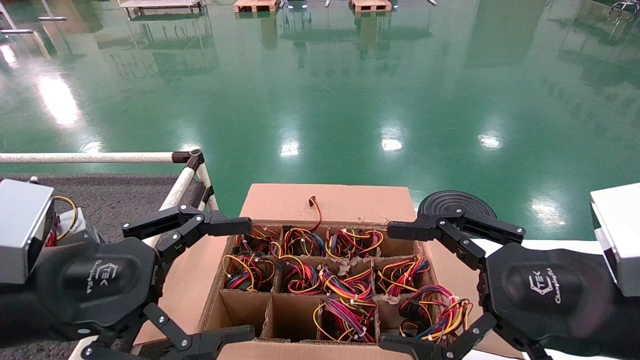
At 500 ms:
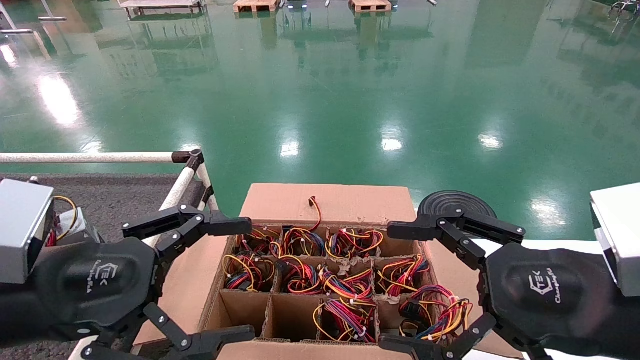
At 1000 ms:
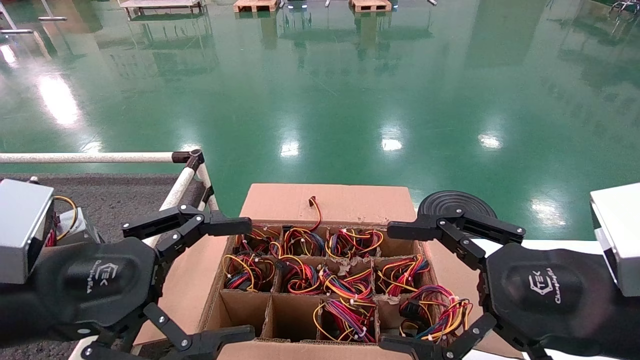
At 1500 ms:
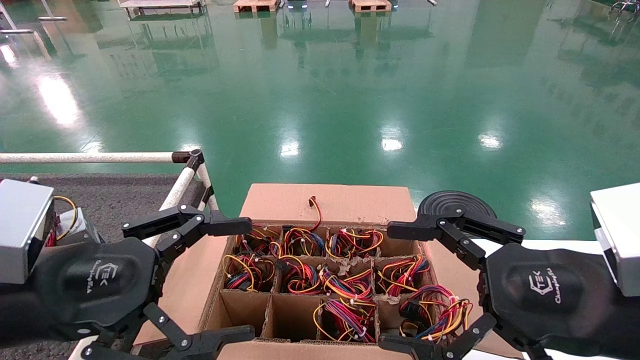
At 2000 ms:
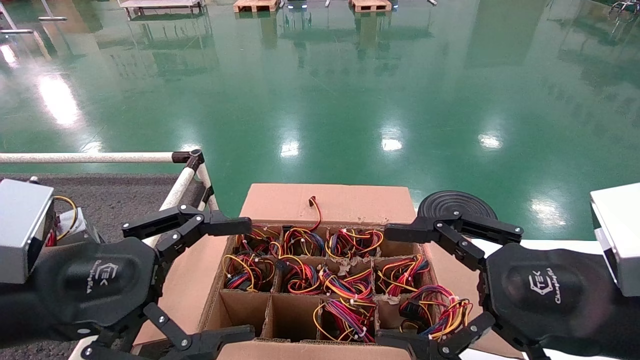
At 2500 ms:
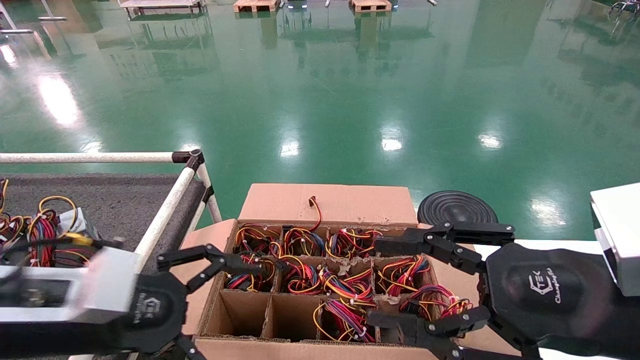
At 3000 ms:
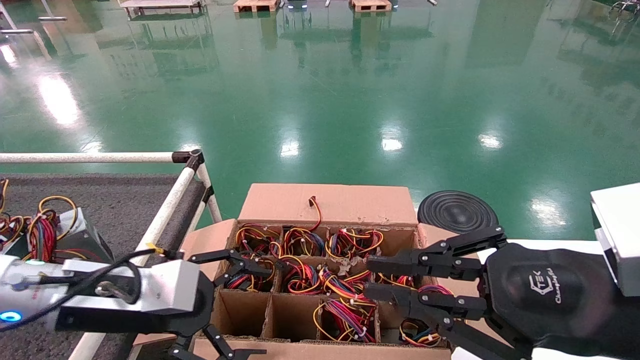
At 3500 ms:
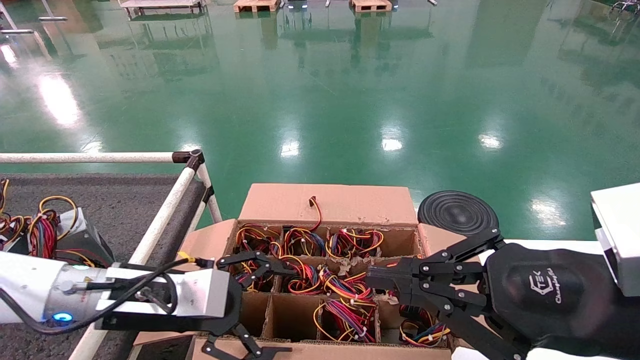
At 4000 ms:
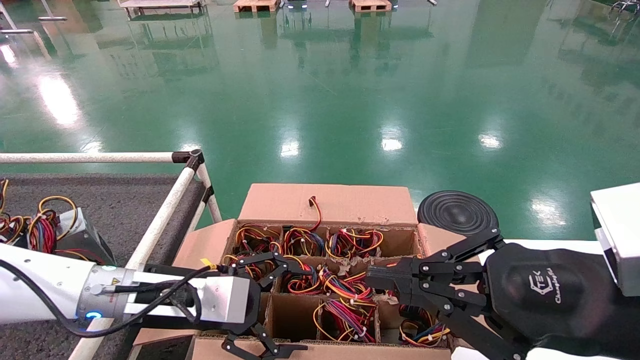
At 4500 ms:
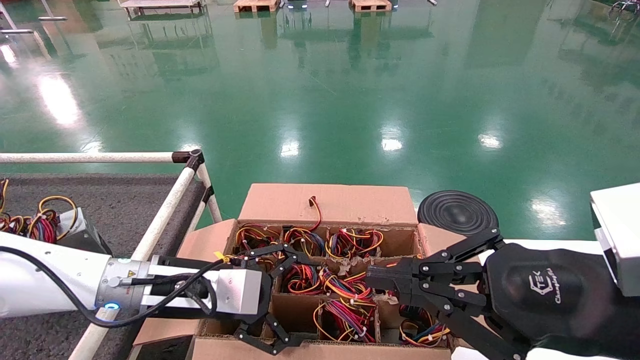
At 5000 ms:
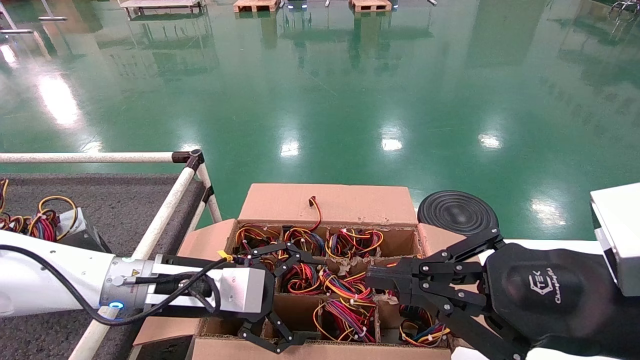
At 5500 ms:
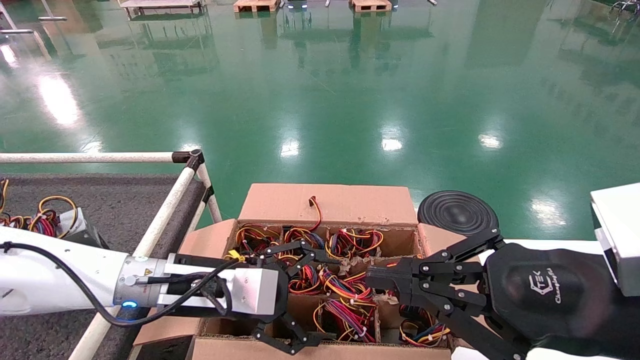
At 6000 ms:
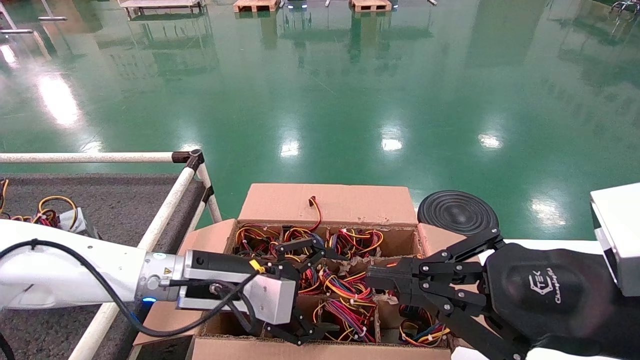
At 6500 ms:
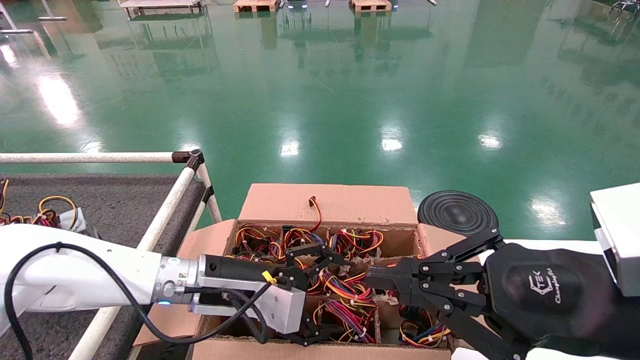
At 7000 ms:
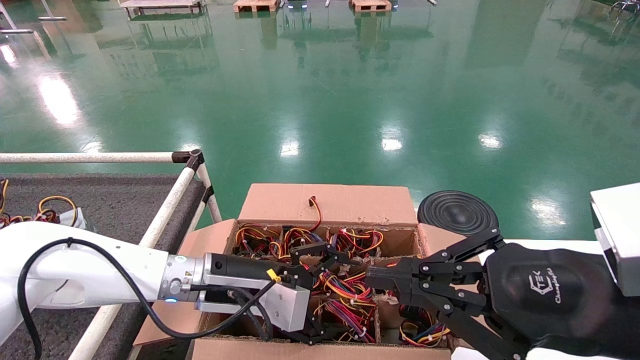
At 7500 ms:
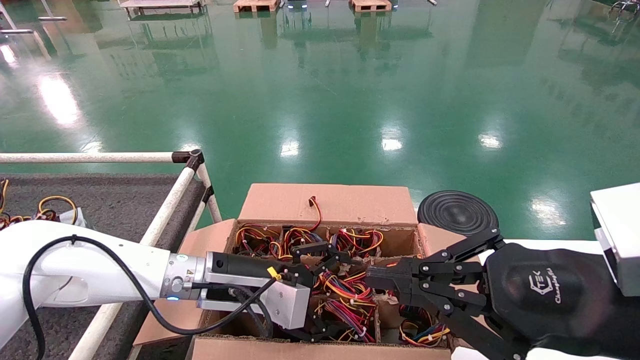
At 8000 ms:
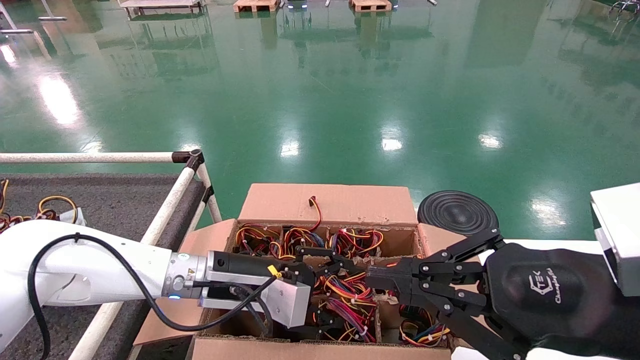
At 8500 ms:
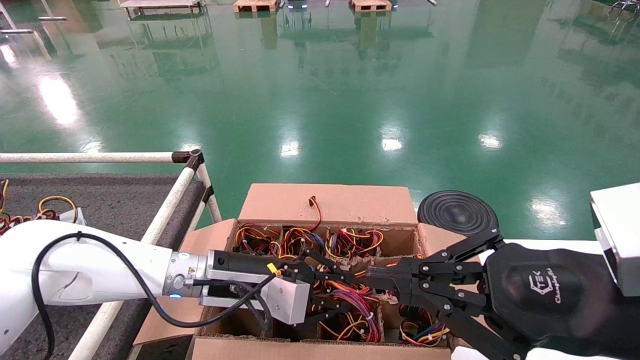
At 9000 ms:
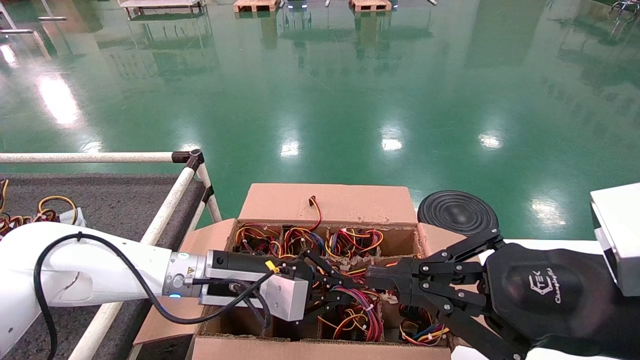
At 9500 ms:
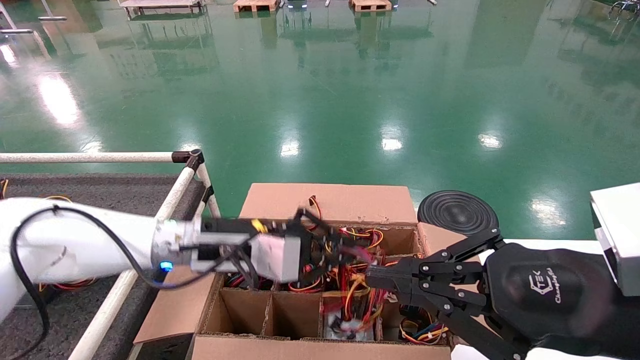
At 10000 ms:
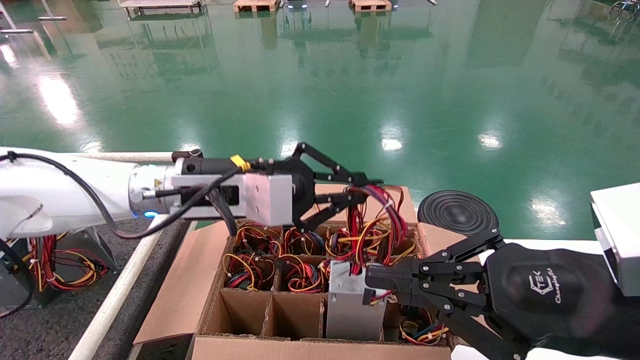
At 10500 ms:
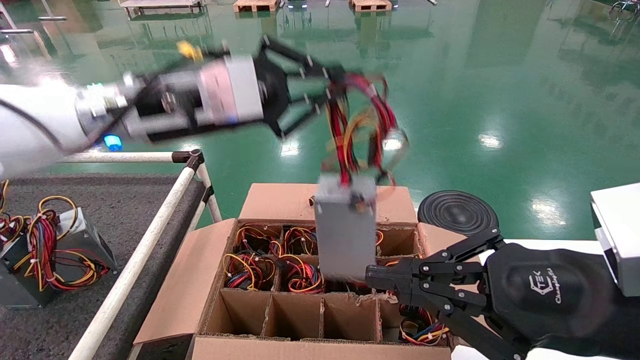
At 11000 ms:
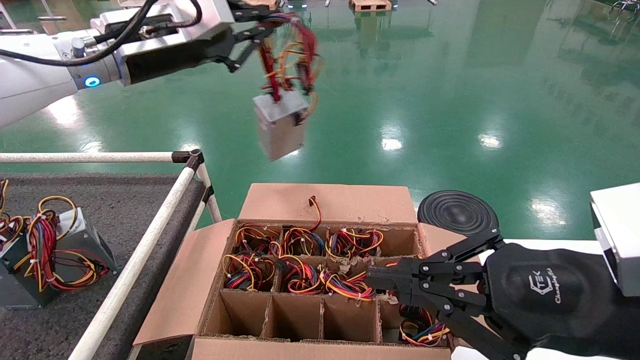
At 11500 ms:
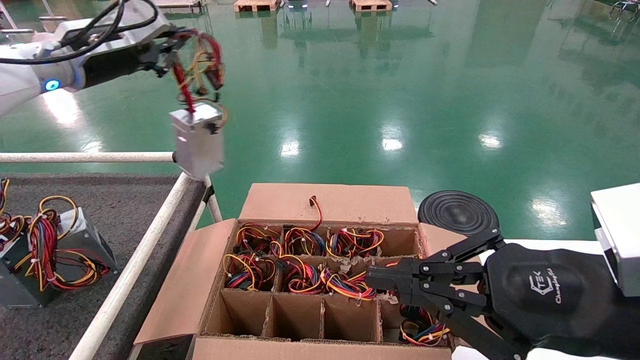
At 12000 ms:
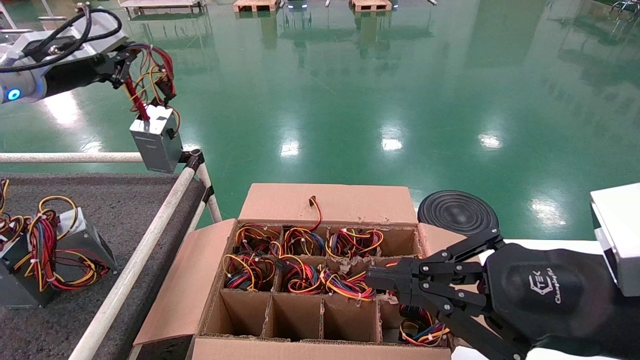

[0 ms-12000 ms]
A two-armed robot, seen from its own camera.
Step, 3000 ms to 8500 ms: Grab and lift the power supply from the large box.
0 ms to 2000 ms: Both grippers stay about where they are.
2000 ms to 4000 ms: The left gripper goes approximately 15 cm forward, downward and to the right, while the right gripper closes its fingers.
4000 ms to 6000 ms: The left gripper ends up approximately 5 cm from where it was.
6000 ms to 8000 ms: The grippers make only small movements.
8000 ms to 10000 ms: The left gripper moves upward, roughly 15 cm, and closes.
10000 ms to 12000 ms: The left gripper is displaced to the left and upward by roughly 30 cm.

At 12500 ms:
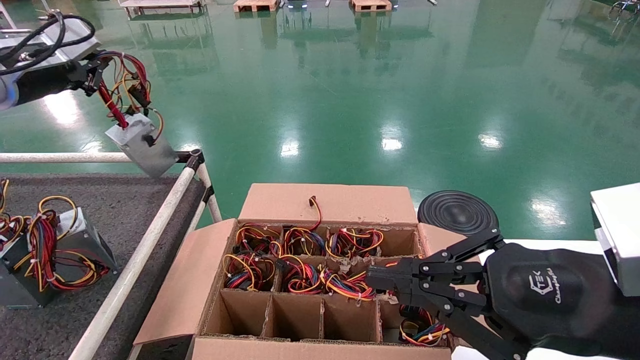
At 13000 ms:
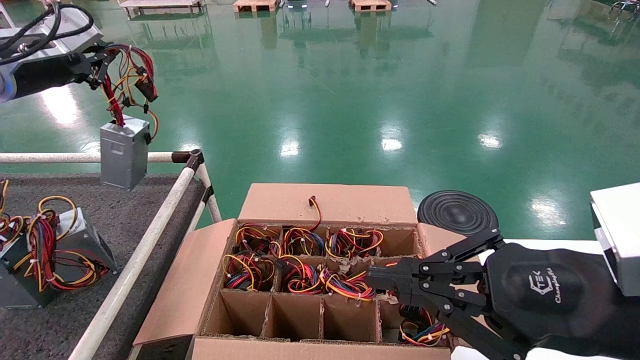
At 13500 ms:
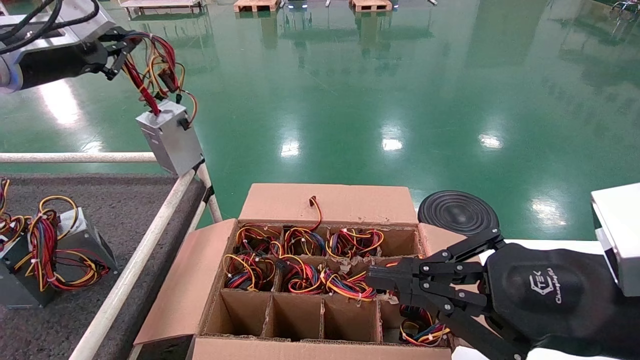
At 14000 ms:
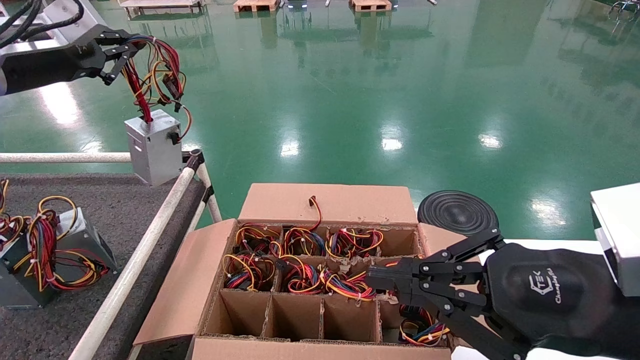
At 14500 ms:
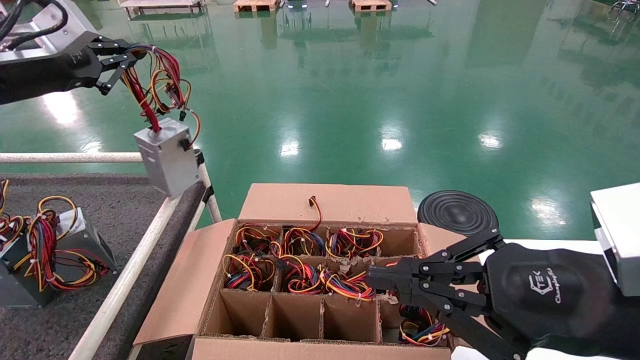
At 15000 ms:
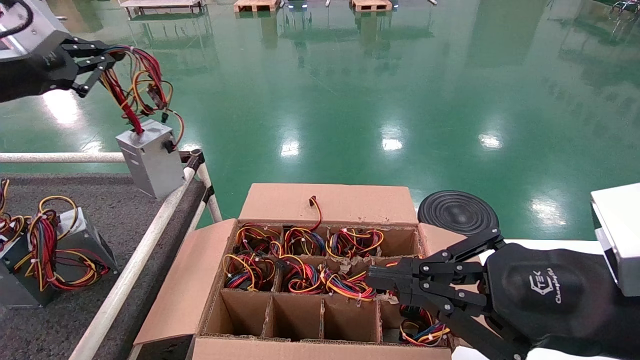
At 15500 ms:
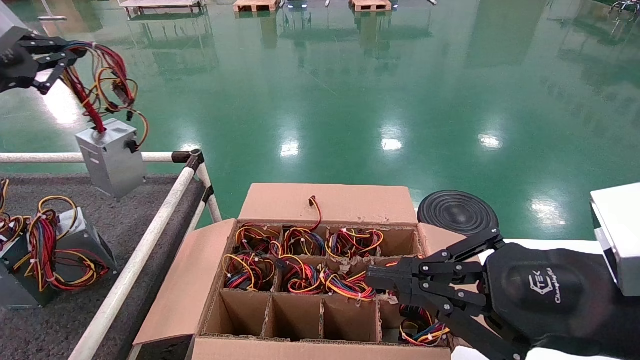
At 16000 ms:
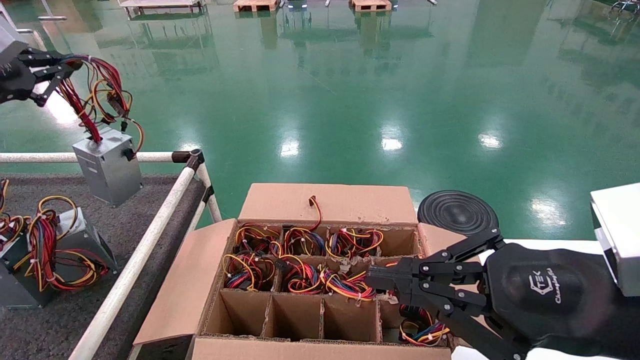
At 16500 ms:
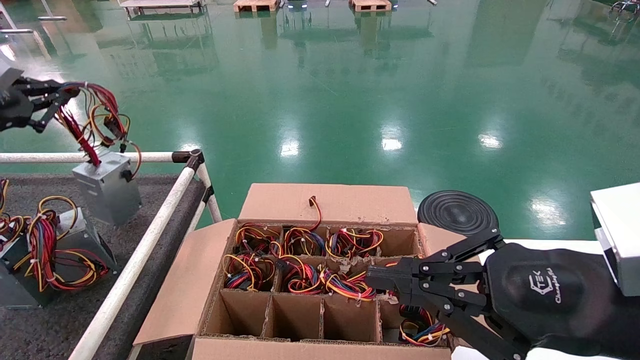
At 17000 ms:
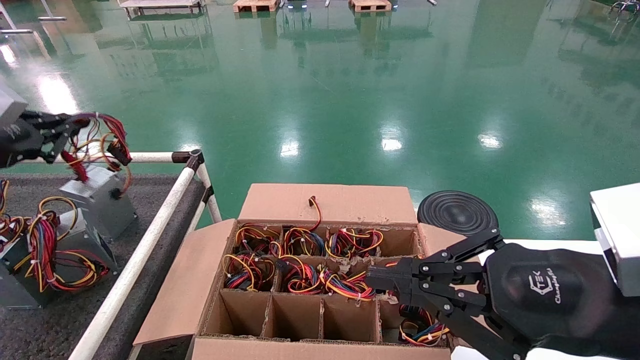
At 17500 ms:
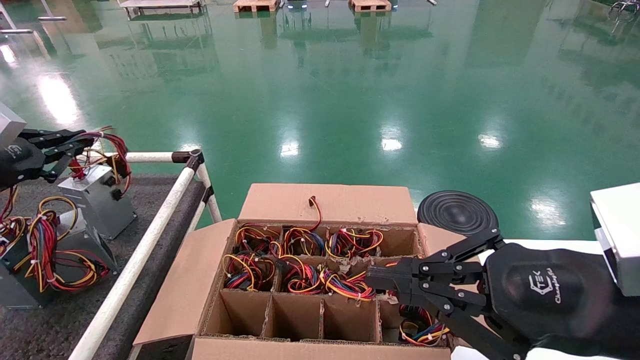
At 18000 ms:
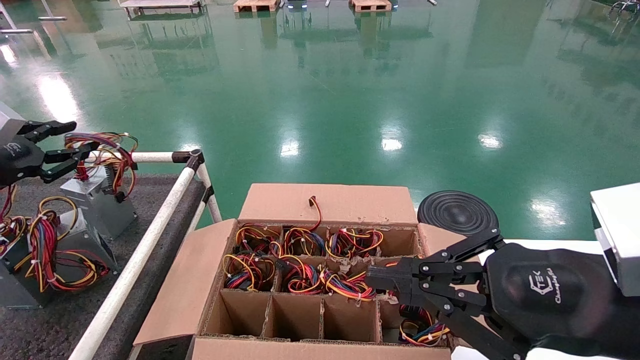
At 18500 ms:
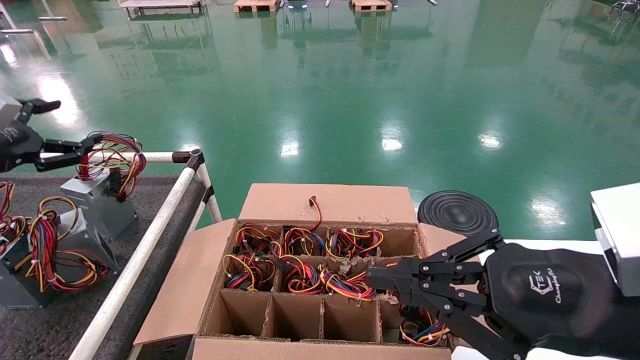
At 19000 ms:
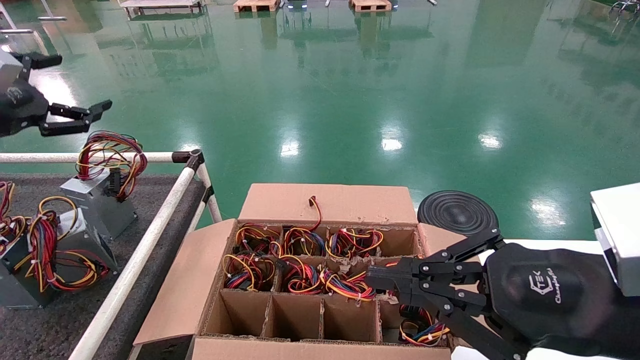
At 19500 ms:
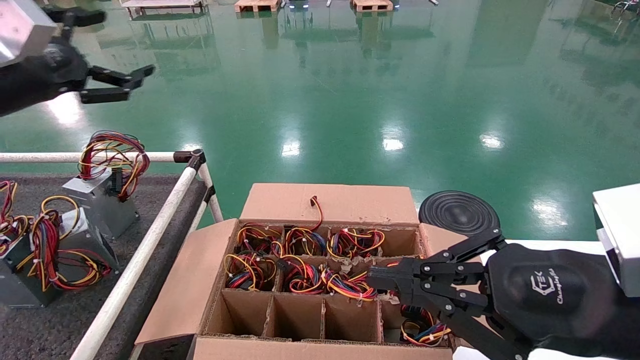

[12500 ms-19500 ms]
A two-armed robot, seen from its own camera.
Step, 12500 ms to 17500 ms: Place the power supply on the operating table.
12500 ms to 14500 ms: There are only small adjustments of the grippers.
14500 ms to 16000 ms: The left gripper heads to the left, covering about 10 cm.
16000 ms to 17500 ms: The left gripper shifts some 10 cm downward.
17500 ms to 19500 ms: The left gripper is displaced to the right and upward by some 15 cm, and opens up.
